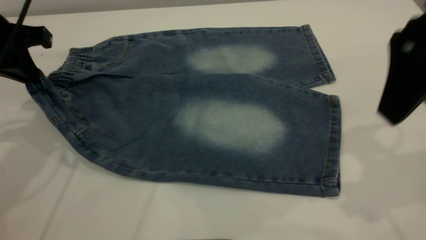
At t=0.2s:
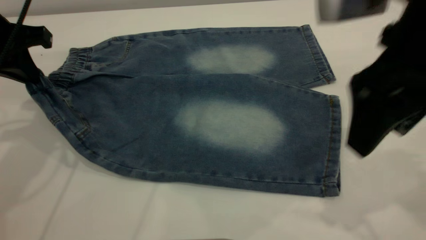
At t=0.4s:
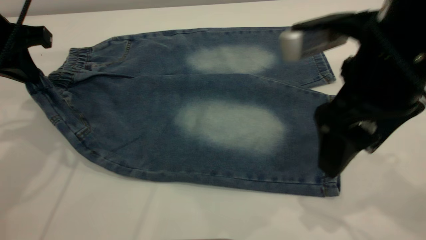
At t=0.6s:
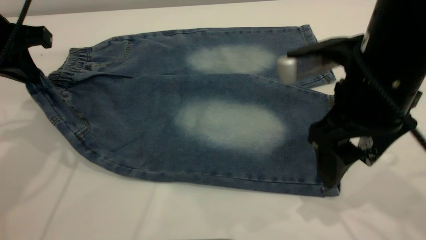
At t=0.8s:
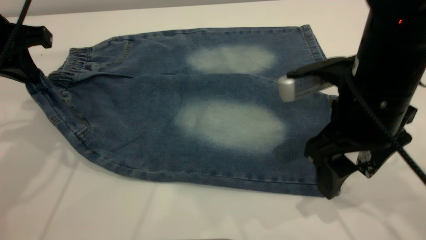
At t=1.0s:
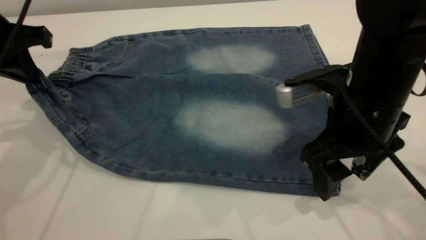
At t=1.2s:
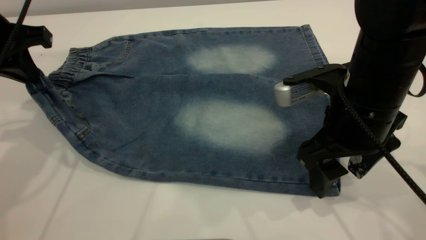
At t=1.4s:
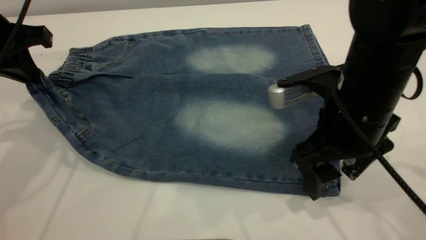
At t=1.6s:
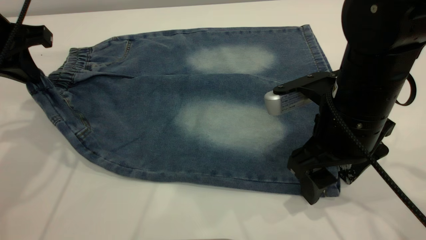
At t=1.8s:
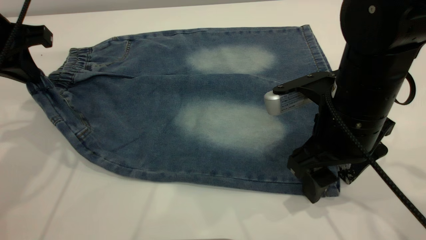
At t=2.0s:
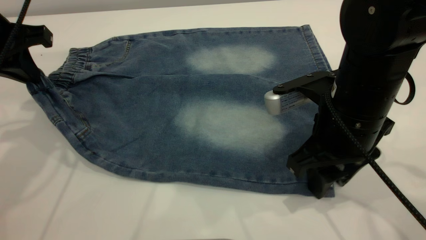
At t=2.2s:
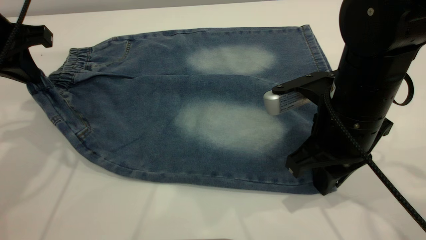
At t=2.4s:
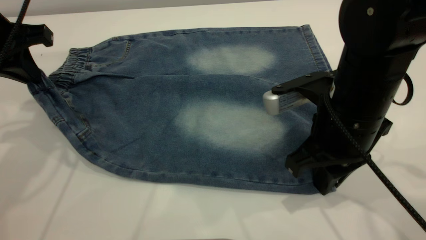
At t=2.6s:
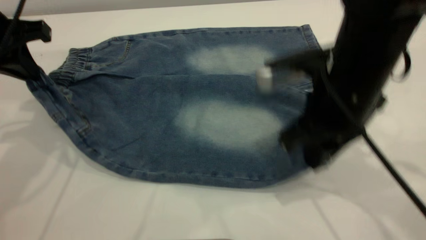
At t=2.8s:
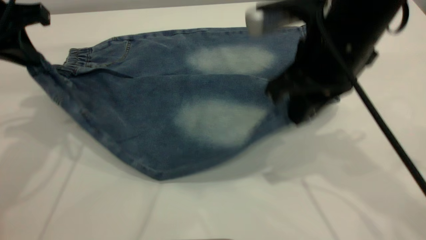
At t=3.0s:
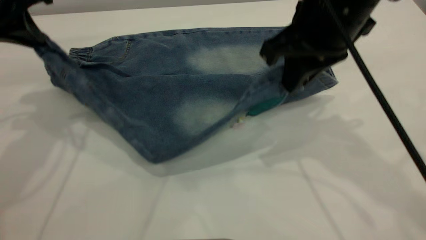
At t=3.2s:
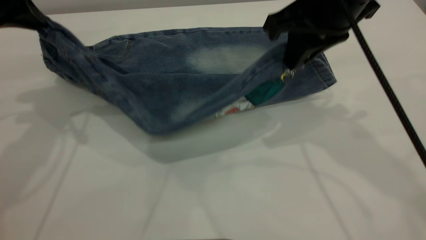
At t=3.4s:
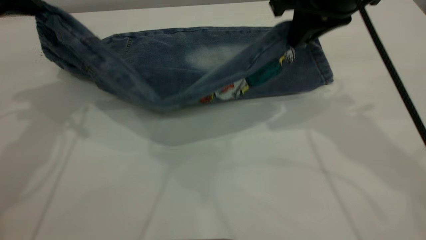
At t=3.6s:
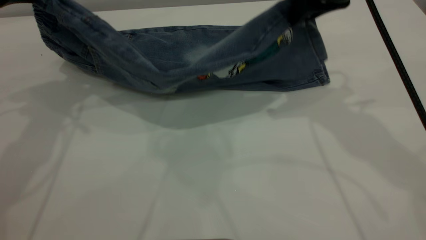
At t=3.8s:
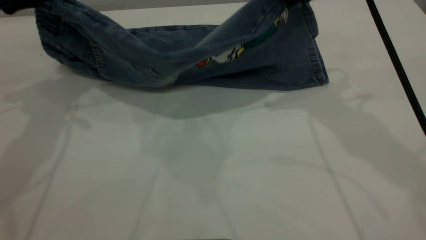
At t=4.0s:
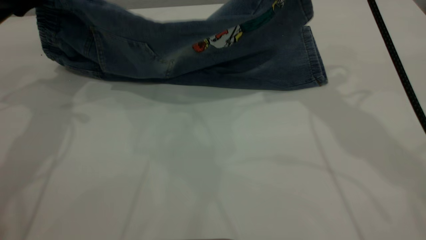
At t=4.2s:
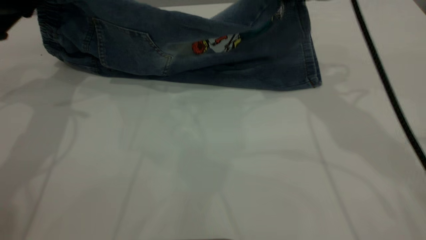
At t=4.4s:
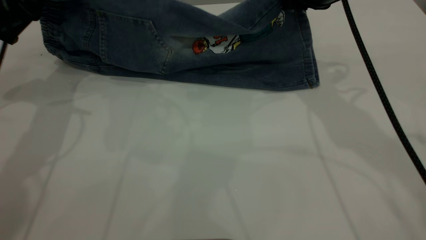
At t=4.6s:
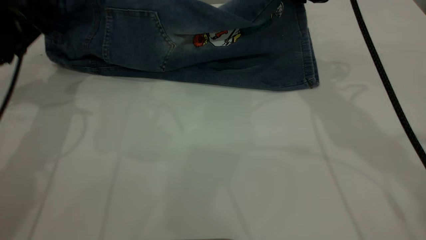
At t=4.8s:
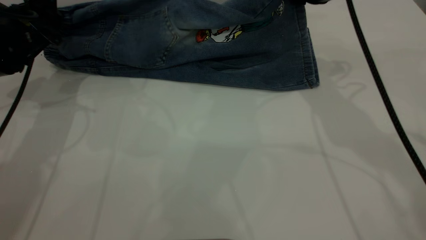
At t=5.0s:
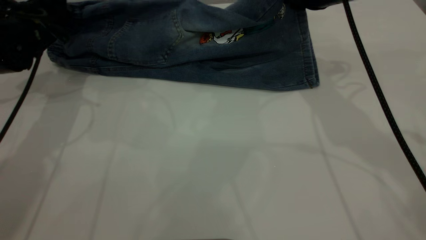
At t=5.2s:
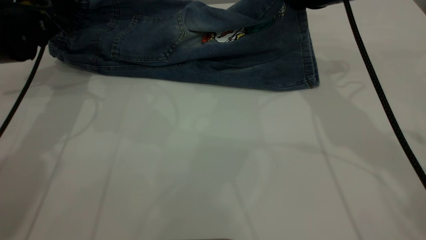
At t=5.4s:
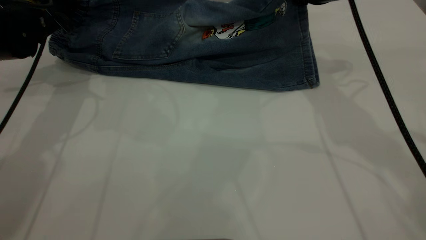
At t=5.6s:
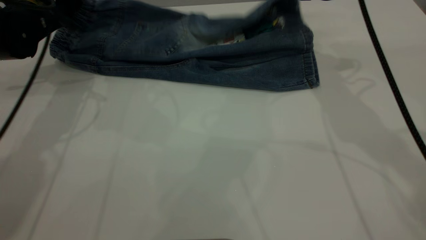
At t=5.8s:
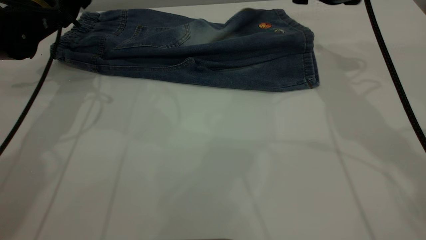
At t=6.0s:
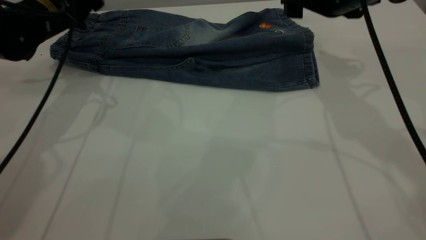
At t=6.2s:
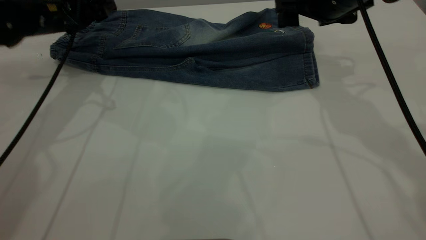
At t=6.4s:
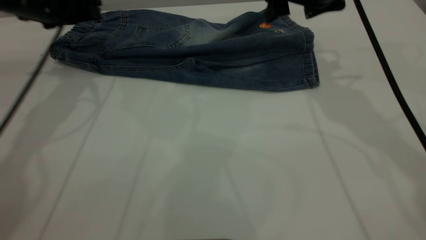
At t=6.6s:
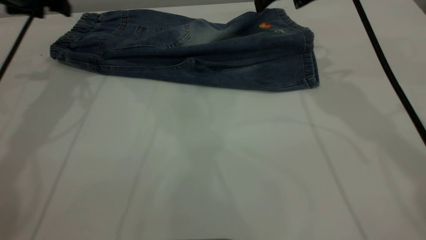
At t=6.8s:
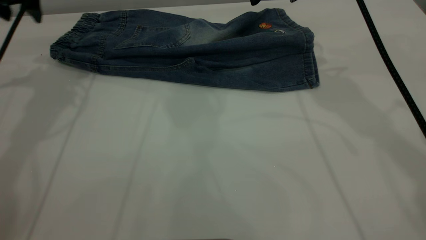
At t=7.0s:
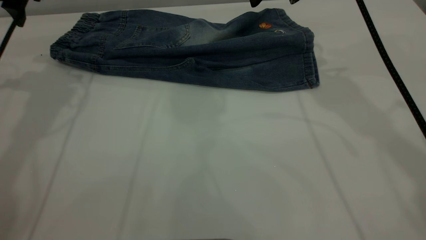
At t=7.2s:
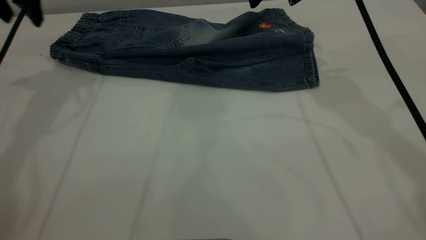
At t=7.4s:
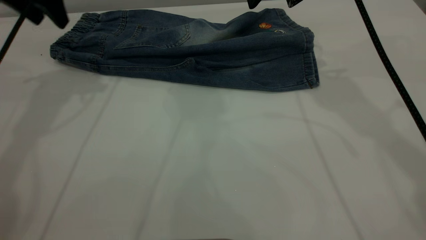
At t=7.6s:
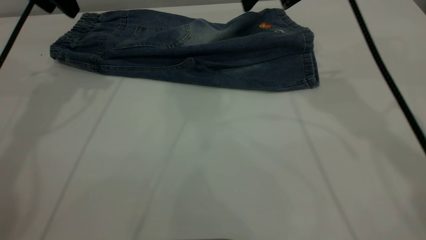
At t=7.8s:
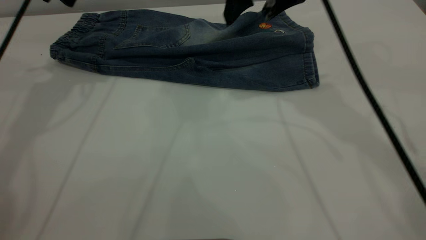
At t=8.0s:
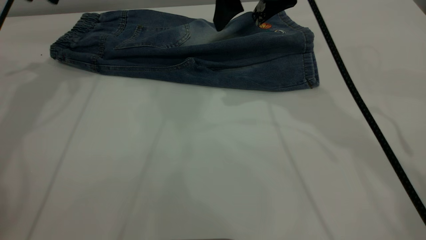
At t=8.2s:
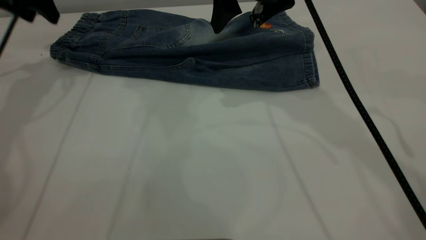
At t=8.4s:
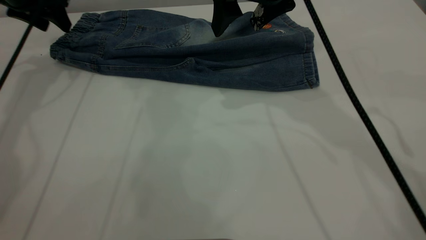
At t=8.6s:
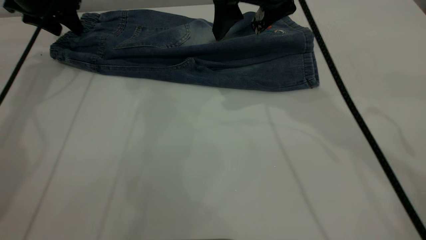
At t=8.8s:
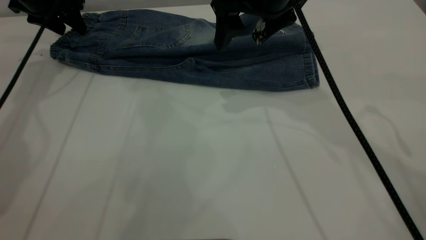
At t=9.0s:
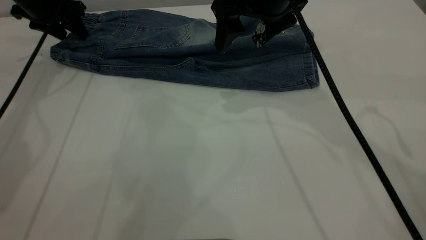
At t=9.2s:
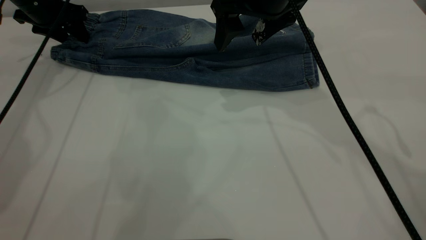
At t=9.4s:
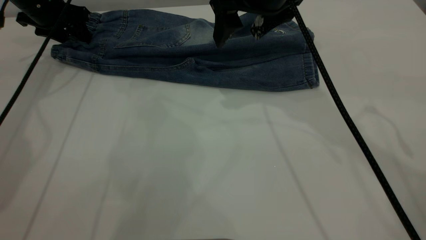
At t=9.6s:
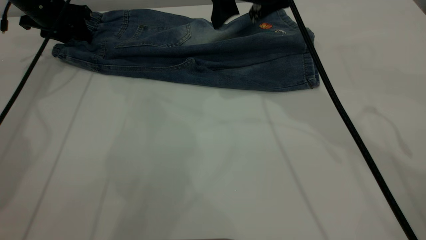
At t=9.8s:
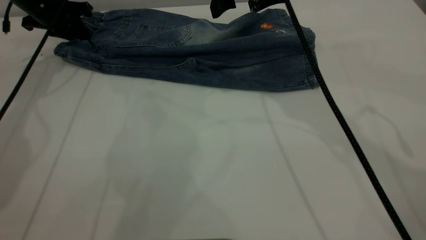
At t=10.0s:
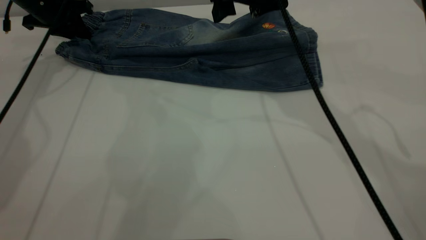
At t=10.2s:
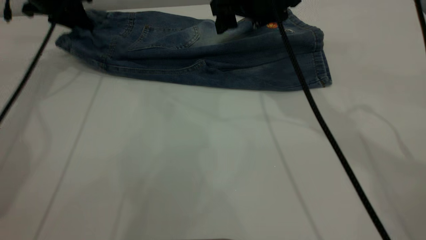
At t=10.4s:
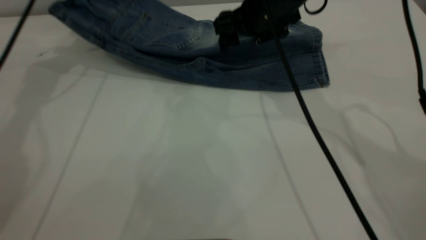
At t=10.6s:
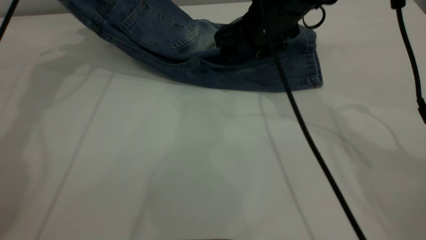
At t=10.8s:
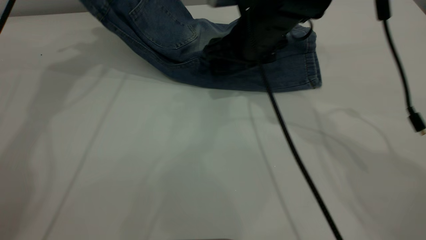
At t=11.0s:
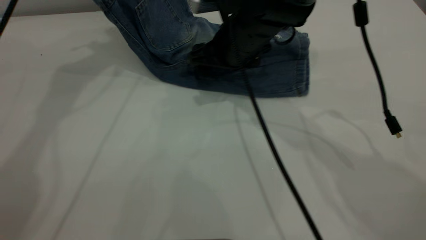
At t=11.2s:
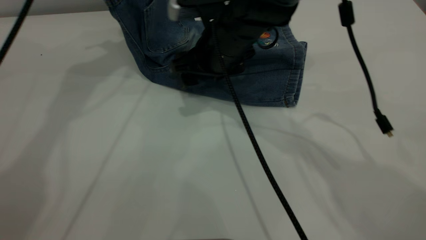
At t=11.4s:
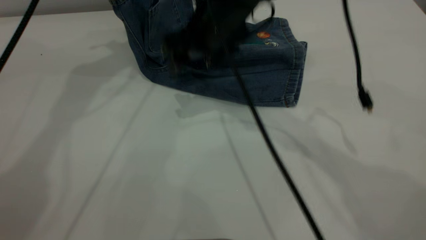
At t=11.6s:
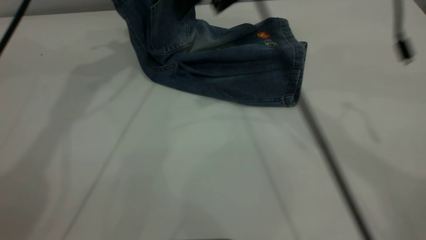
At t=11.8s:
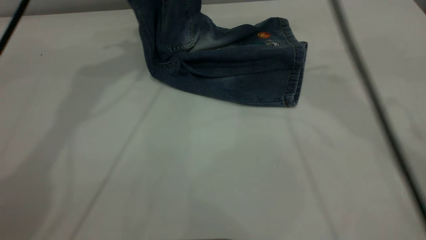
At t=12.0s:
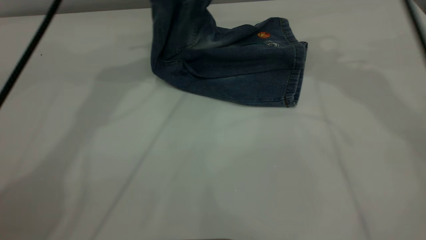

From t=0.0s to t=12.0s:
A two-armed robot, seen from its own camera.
Step, from t=0.0s to t=5.8s: Fold the bottom of the pants upward.
From t=0.0s to t=1.6s: The right gripper is displaced downward and to the left by some 15 cm.
From t=1.6s to t=3.0s: The right gripper travels upward and forward by some 10 cm, and closes.
From t=3.0s to t=4.4s: The right gripper goes some 10 cm forward. Meanwhile the left gripper moves downward and forward, approximately 10 cm.
From t=4.4s to t=6.0s: The right gripper opens its fingers; the left gripper changes place by some 5 cm, and opens up.
From t=6.0s to t=7.6s: The right gripper moves upward and to the left, about 10 cm; the left gripper travels upward by about 10 cm.
From t=7.6s to t=9.0s: The right gripper changes place by approximately 5 cm; the left gripper goes roughly 15 cm downward, forward and to the left.
From t=9.0s to t=10.4s: The right gripper shifts some 5 cm downward, while the left gripper shifts approximately 10 cm upward, and closes up.
From t=10.4s to t=12.0s: The right gripper heads upward and to the right, covering roughly 20 cm; the left gripper heads to the right and upward, covering about 20 cm.

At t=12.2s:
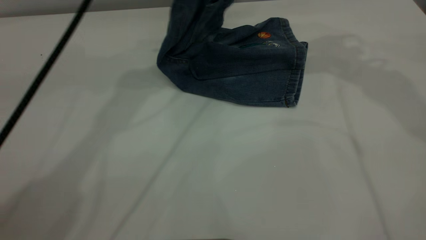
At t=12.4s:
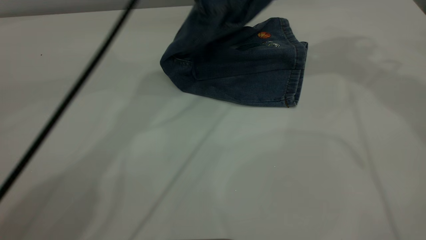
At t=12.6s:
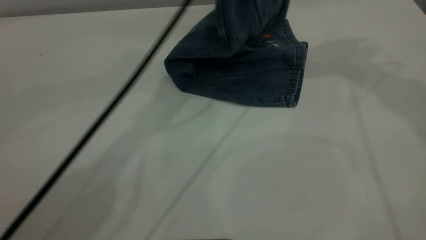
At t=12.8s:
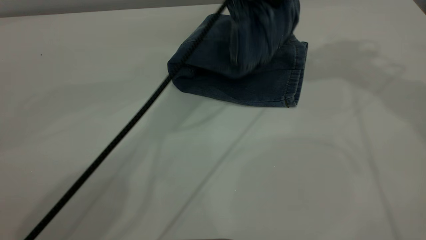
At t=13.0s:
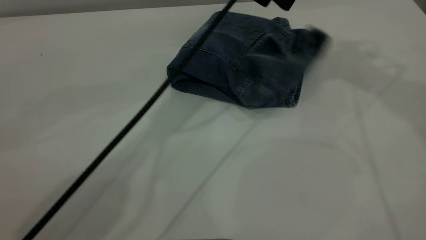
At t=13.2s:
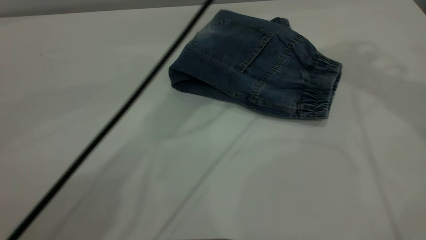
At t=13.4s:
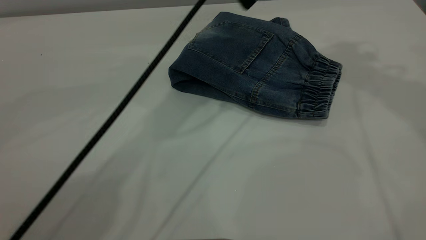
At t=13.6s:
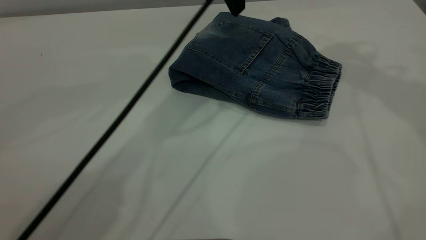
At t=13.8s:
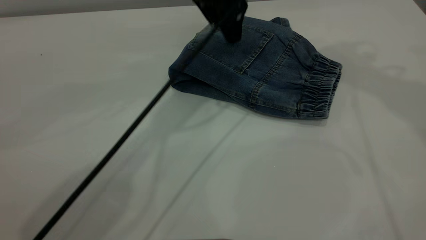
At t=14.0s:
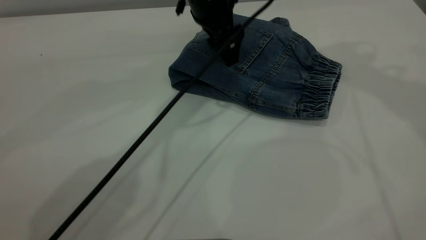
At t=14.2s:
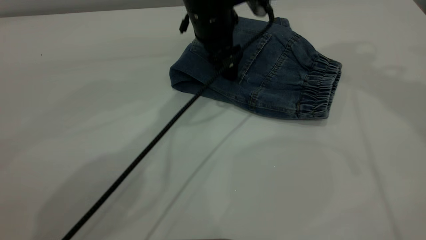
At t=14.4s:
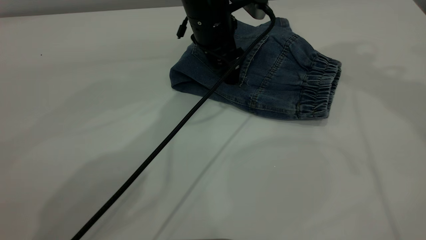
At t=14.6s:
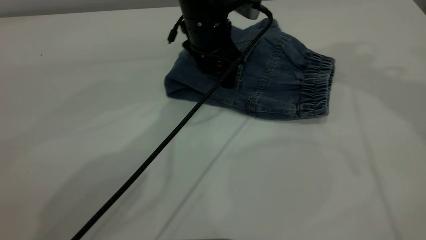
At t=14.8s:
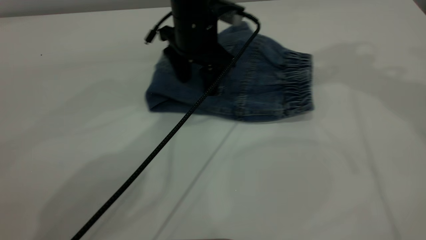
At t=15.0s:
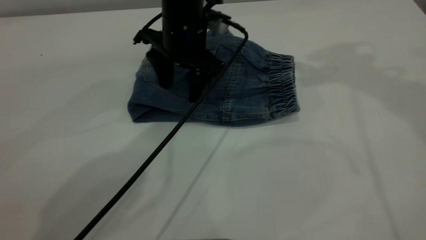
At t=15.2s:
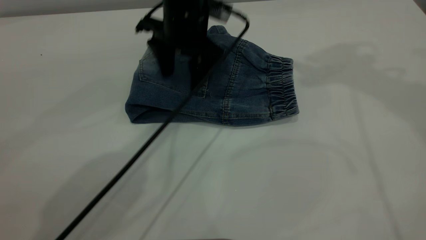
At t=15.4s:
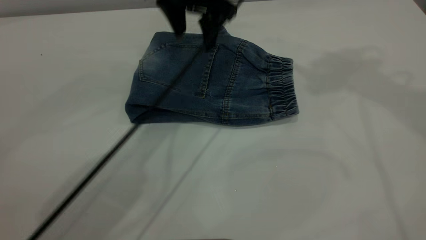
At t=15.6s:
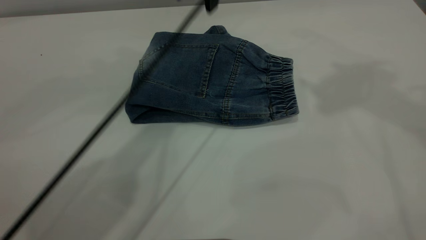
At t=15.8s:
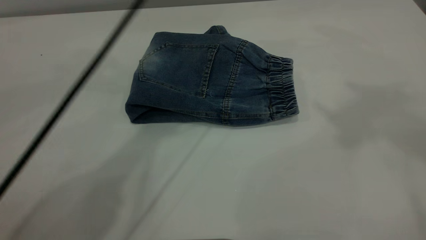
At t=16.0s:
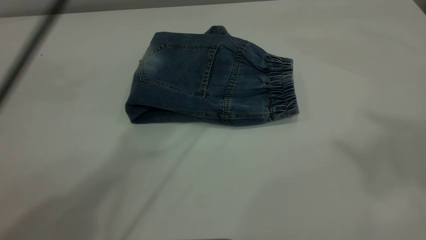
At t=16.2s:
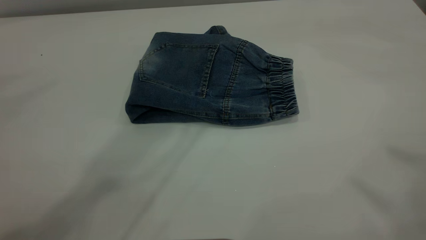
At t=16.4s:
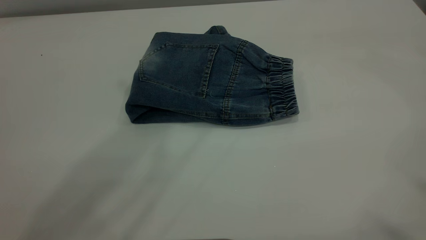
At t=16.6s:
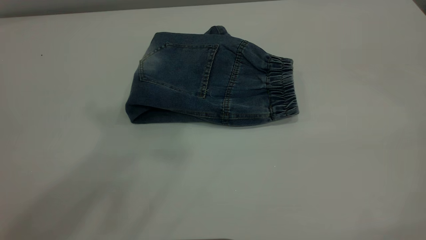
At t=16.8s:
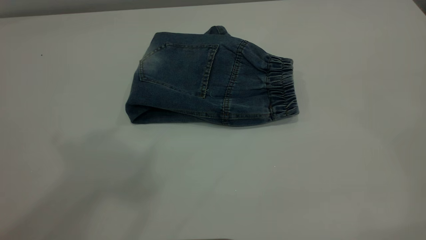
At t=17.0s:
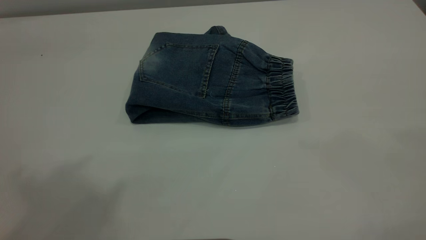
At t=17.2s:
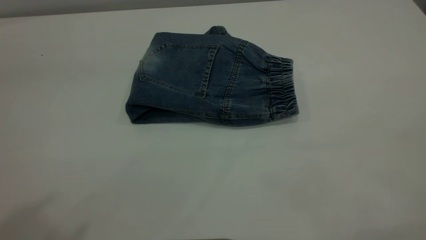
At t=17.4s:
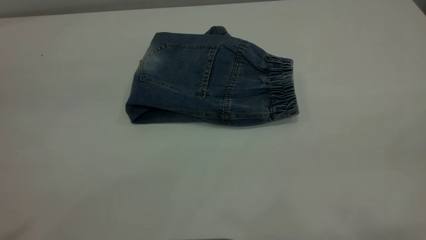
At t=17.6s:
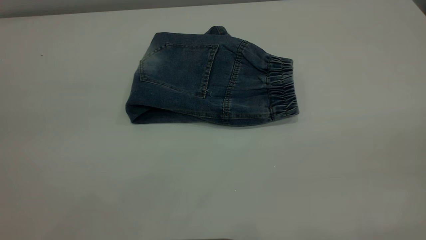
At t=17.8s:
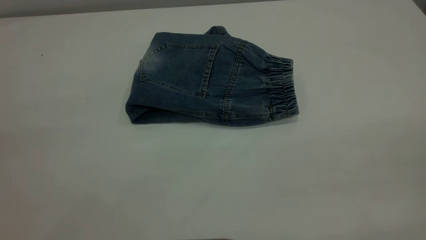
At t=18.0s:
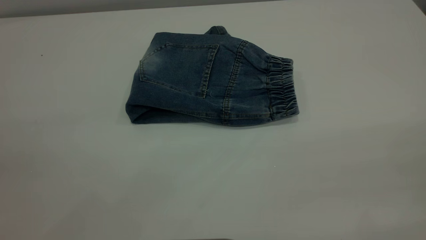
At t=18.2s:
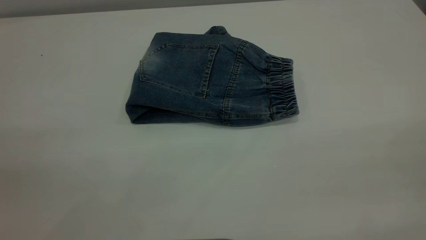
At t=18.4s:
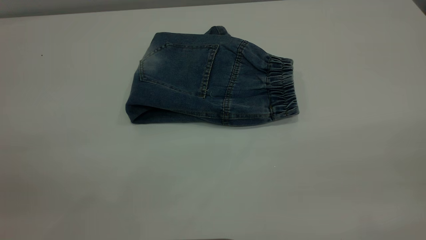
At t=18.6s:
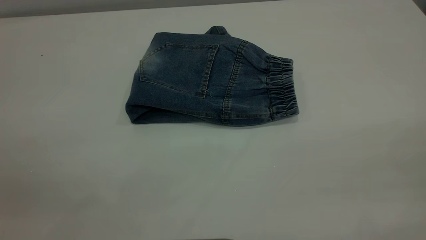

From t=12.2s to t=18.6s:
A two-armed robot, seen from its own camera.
From t=12.2s to t=13.8s: The left gripper moves up and down over about 10 cm, changing direction 2 times, and opens up.
From t=13.8s to t=15.4s: The right gripper moves some 5 cm; the left gripper moves about 5 cm downward and comes back.
From t=15.4s to t=17.0s: The right gripper goes roughly 40 cm backward; the left gripper heads upward, backward and to the left, covering about 50 cm.
